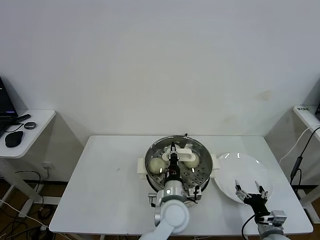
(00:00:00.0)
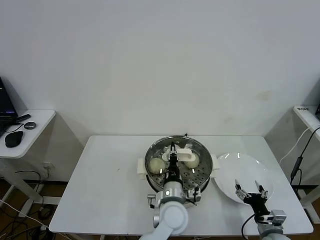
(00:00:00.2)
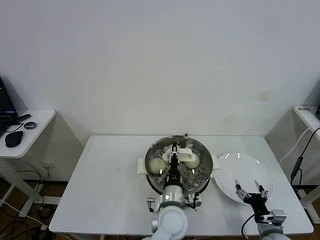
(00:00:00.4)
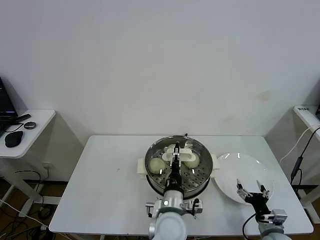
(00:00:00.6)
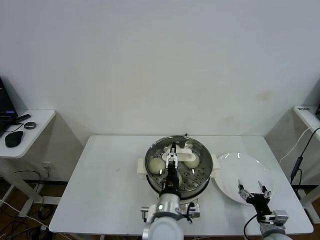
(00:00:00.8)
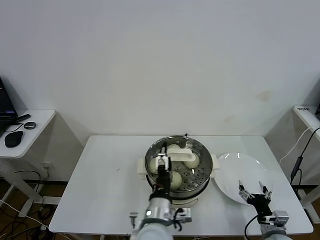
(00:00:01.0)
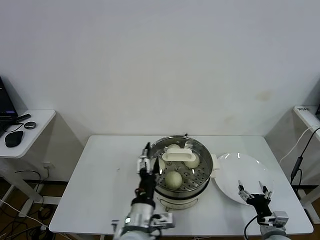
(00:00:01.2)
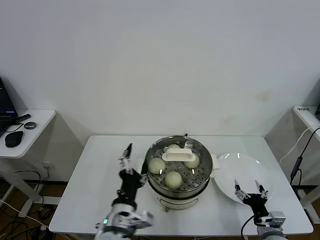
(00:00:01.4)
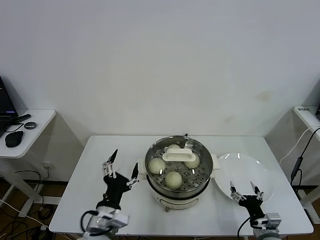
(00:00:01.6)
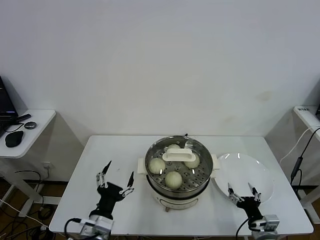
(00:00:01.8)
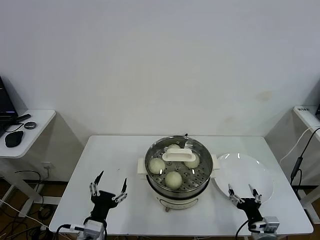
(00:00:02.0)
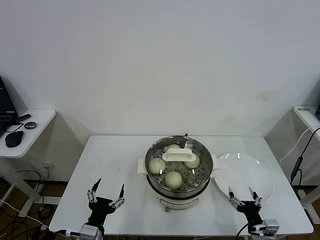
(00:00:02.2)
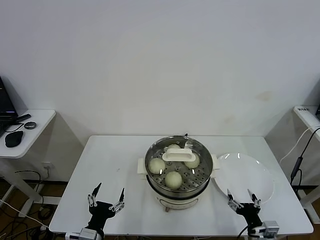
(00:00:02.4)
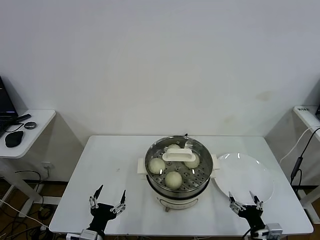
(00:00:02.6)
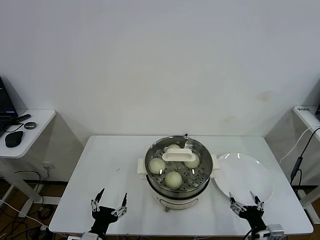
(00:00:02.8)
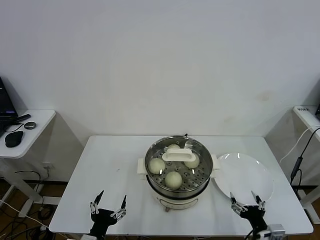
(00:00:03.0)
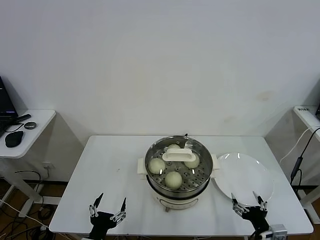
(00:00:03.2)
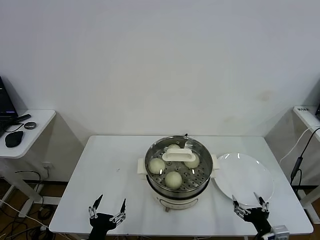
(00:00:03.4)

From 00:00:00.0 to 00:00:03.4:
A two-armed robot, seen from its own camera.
Task of the whole recording: take steamed baozi put them in steamer.
From 00:00:00.0 to 00:00:01.6: The left gripper shifts some 20 cm to the left and backward, and opens up.
From 00:00:01.6 to 00:00:03.4: The right gripper is displaced backward by approximately 5 cm. Meanwhile the left gripper heads downward, to the left and backward, covering approximately 15 cm.
